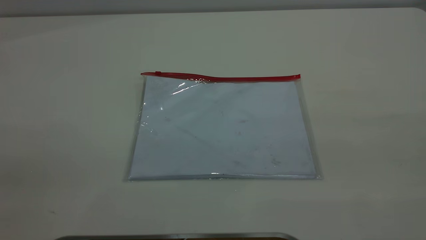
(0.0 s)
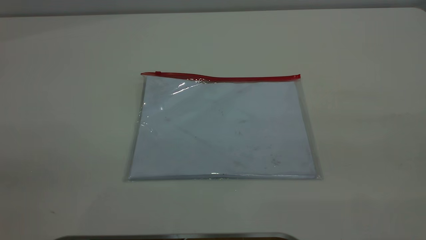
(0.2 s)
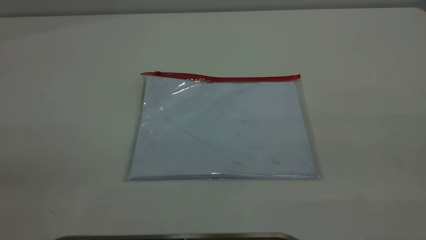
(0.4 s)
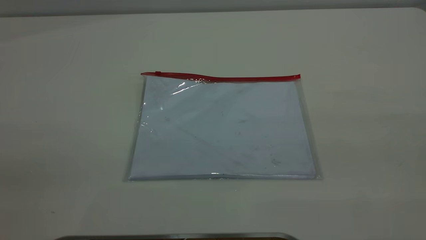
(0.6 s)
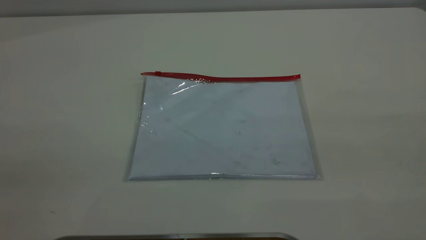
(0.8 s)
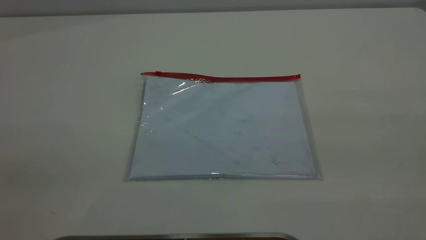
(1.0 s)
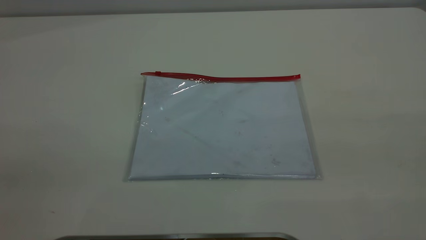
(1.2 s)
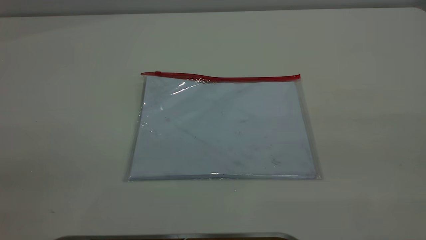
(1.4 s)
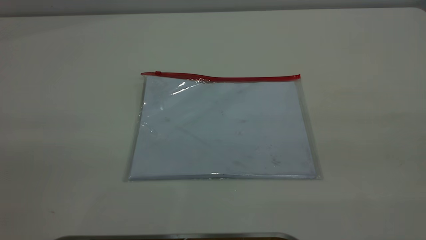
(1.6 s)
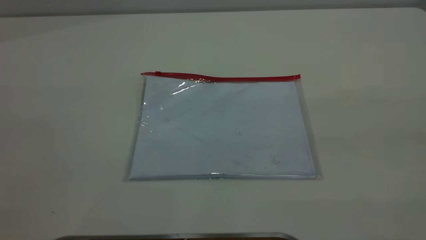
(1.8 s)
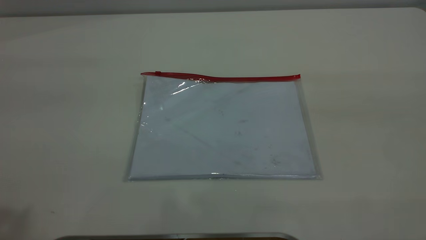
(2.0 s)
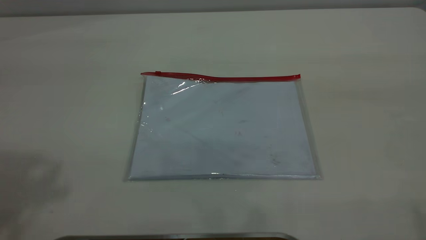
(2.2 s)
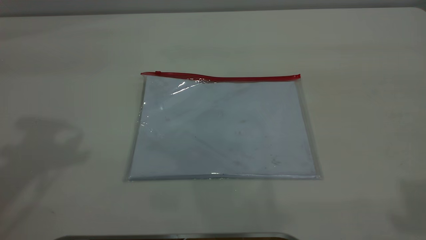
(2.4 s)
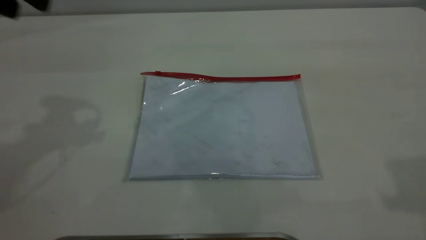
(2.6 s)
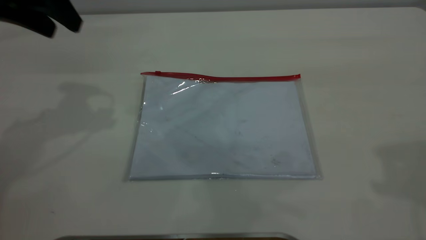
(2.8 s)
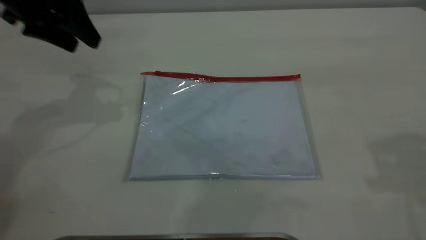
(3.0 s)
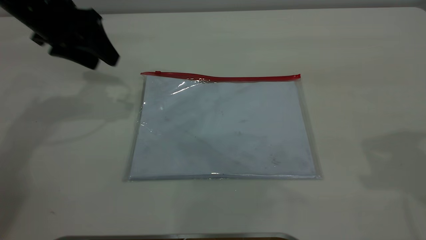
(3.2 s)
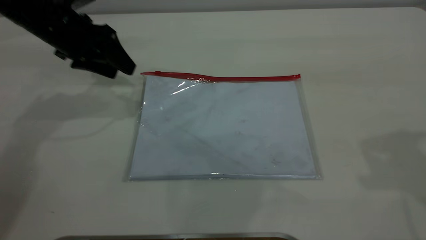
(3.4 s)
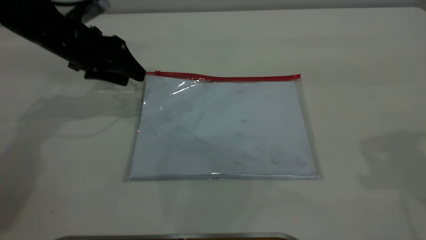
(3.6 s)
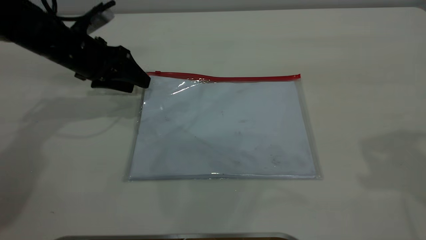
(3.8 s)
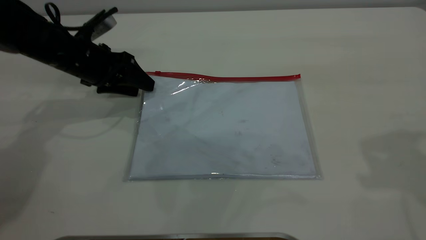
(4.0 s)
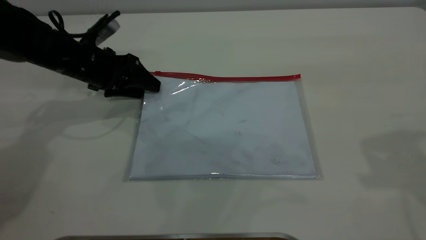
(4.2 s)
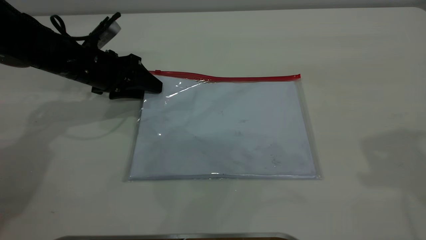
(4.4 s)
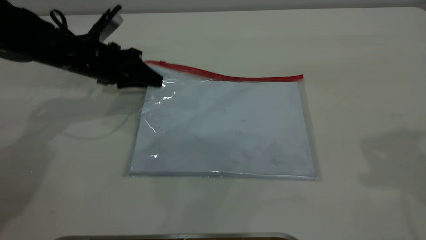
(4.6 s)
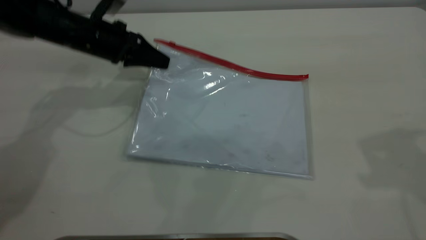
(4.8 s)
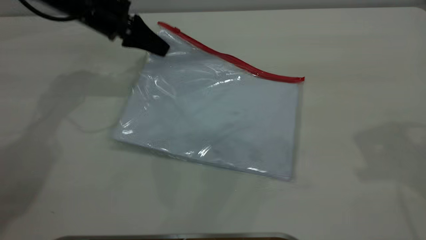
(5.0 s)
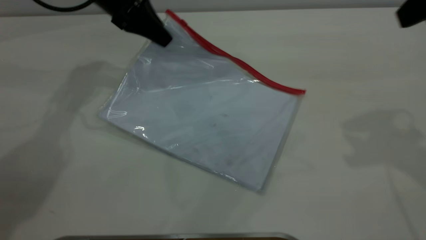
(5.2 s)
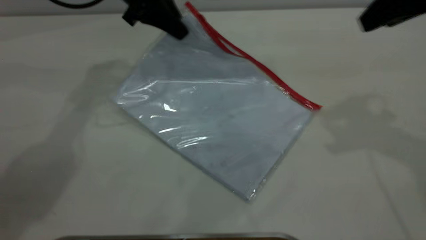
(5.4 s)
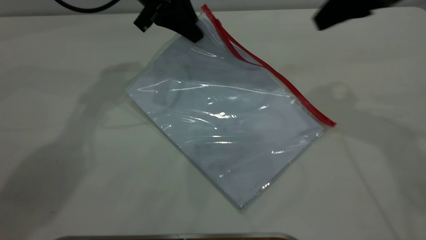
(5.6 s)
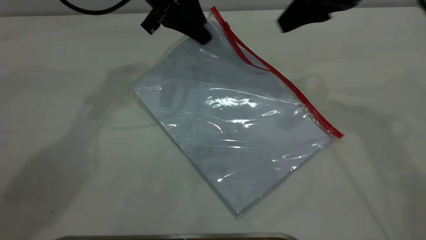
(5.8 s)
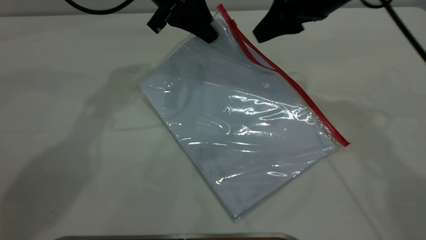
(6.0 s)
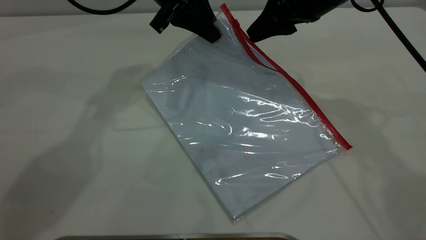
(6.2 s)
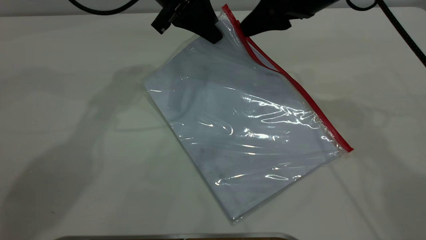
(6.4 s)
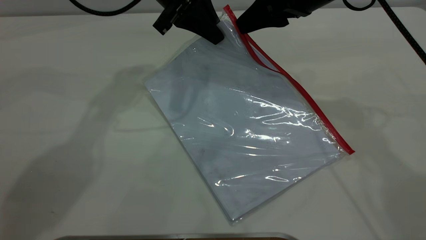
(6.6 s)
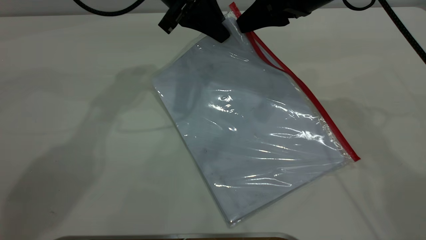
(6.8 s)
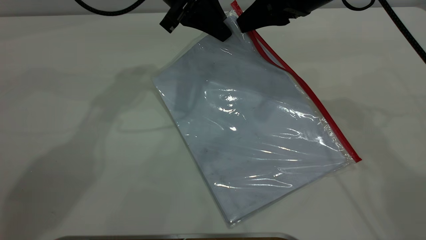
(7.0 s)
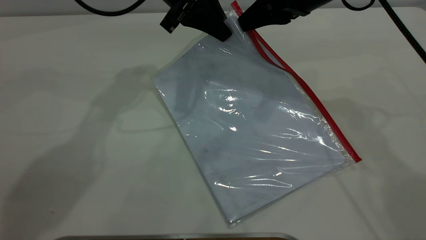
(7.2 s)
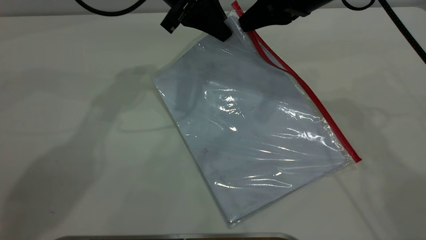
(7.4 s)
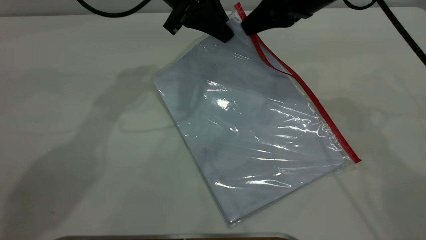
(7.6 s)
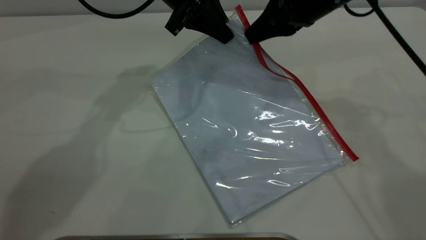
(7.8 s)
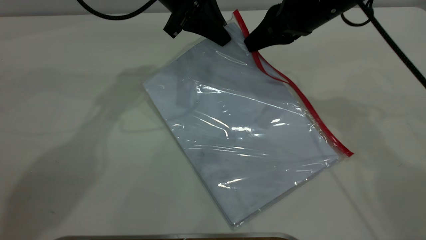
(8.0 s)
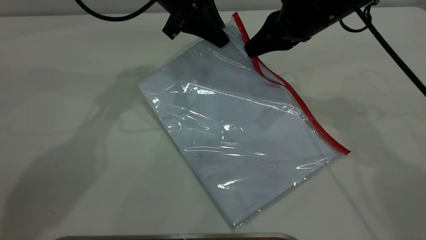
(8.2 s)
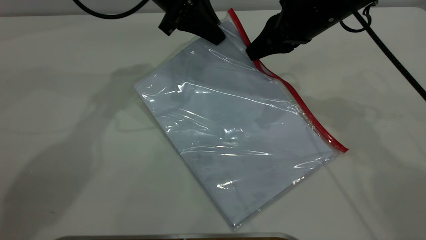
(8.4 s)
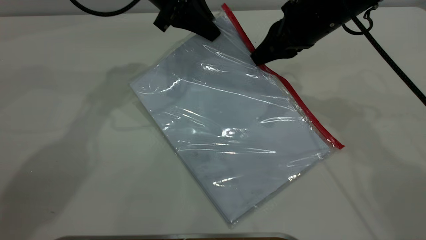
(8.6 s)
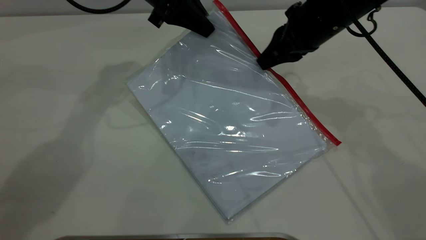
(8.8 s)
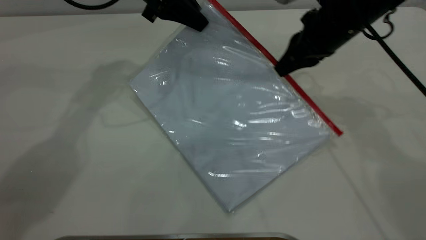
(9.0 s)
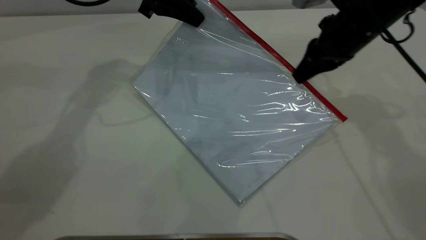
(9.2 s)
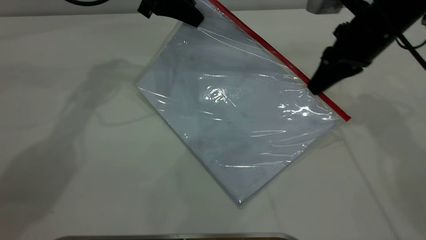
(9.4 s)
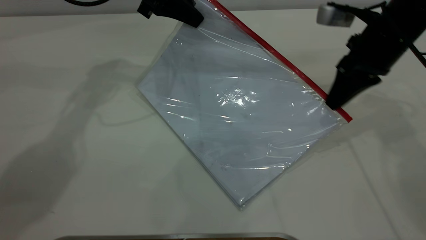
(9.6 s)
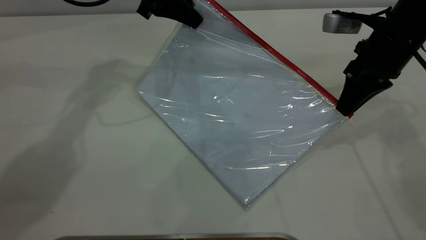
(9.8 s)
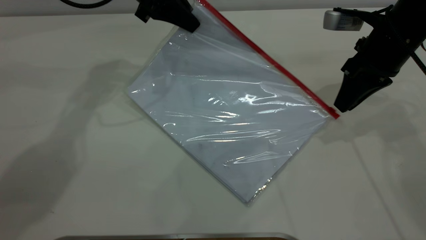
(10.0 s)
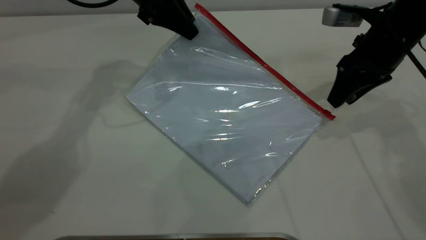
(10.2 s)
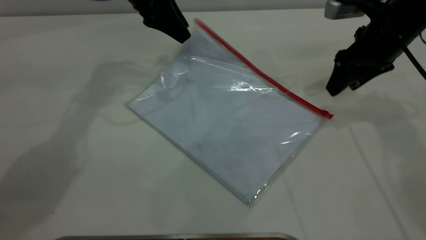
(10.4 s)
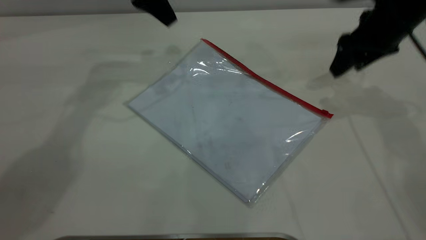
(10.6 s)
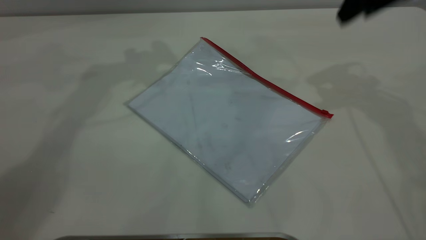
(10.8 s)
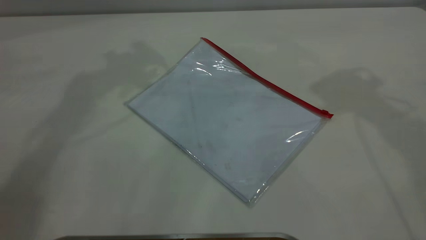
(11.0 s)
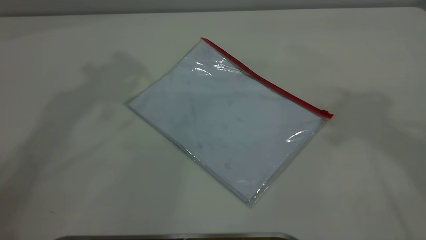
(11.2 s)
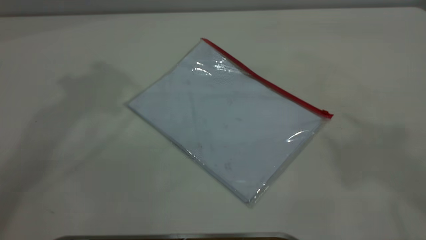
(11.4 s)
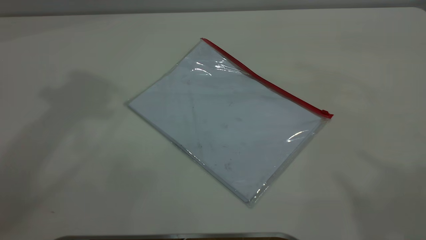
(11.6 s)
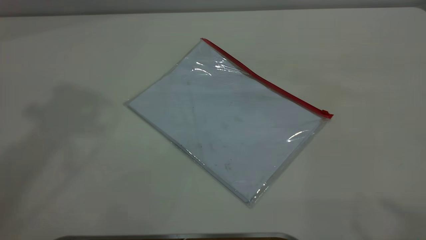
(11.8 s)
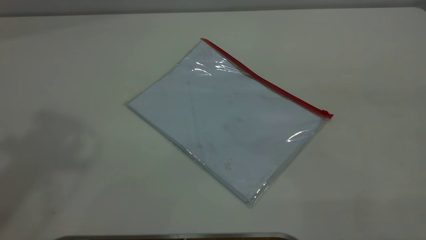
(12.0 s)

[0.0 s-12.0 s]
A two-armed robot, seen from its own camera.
Step, 0.0 to 5.0 s: Pick up the transparent plastic bag with the left gripper.
Step, 5.2 to 10.0 s: Pulling up the zipper on the transparent plastic bag with the right gripper to close it.
Step, 10.2 to 10.6 s: Place the transparent plastic bag.
1.6 to 3.0 s: The left gripper is displaced forward and downward by about 40 cm.
3.0 to 4.4 s: The left gripper is displaced downward by approximately 15 cm.
4.4 to 6.0 s: The right gripper is displaced forward, downward and to the left by approximately 25 cm. Meanwhile the left gripper is displaced to the right, upward and forward by some 20 cm, and closes.
6.0 to 7.6 s: The right gripper closes up.
7.6 to 9.0 s: The left gripper travels to the left by about 5 cm; the right gripper heads downward, covering some 5 cm.
9.0 to 10.4 s: The left gripper opens up; the right gripper moves to the right, roughly 5 cm, and opens up.
10.4 to 12.0 s: The grippers both shift upward and backward by roughly 50 cm.

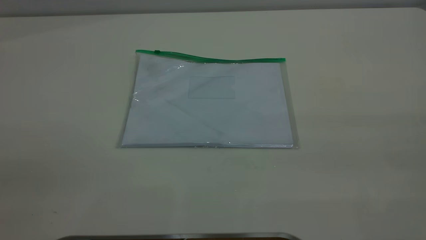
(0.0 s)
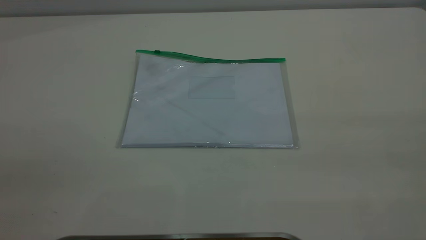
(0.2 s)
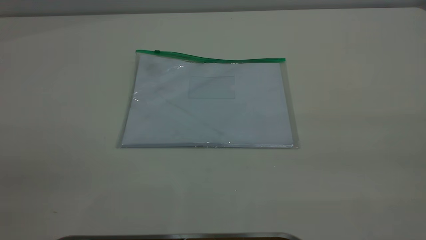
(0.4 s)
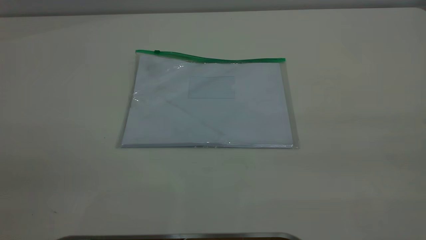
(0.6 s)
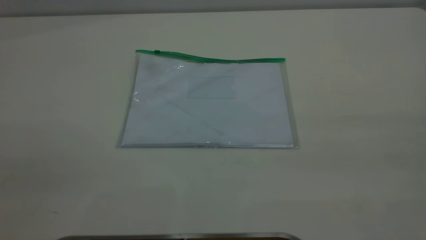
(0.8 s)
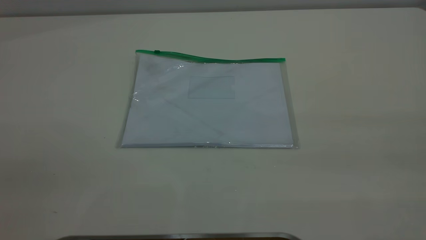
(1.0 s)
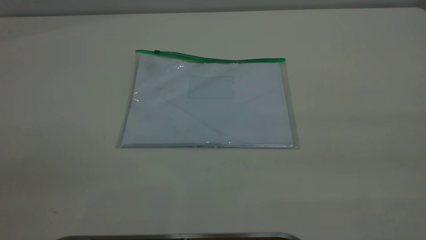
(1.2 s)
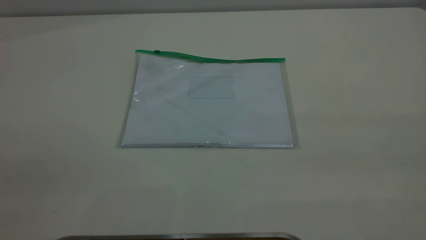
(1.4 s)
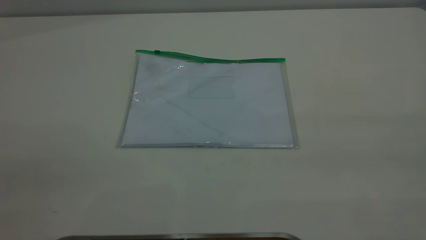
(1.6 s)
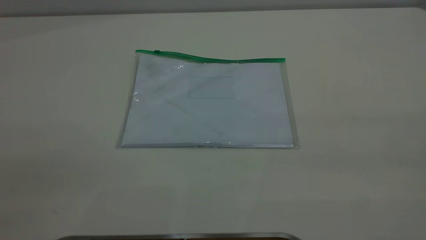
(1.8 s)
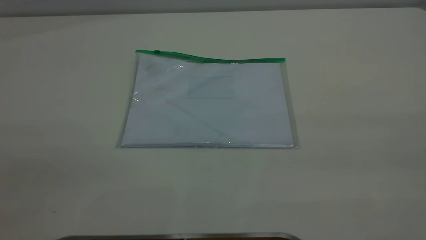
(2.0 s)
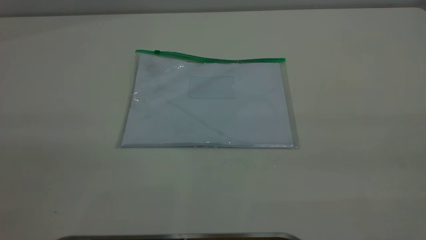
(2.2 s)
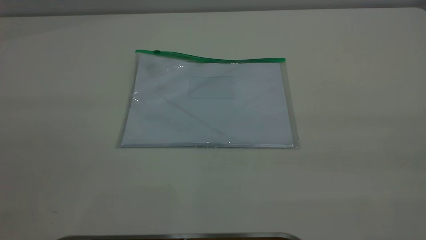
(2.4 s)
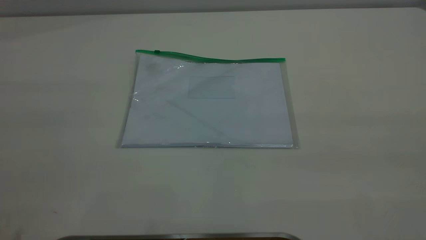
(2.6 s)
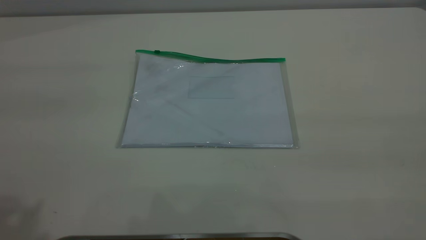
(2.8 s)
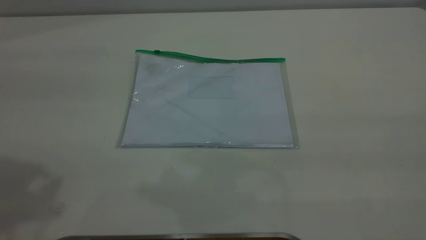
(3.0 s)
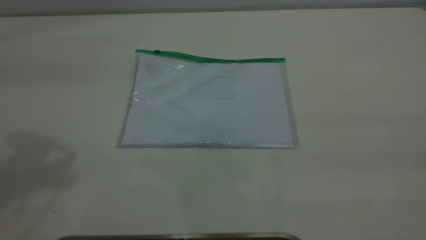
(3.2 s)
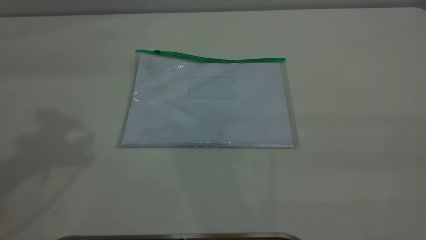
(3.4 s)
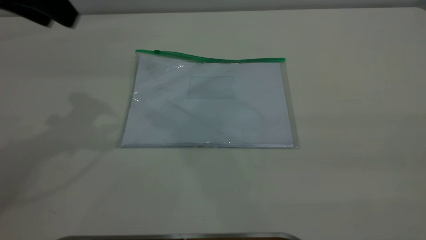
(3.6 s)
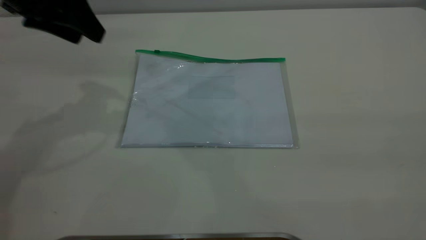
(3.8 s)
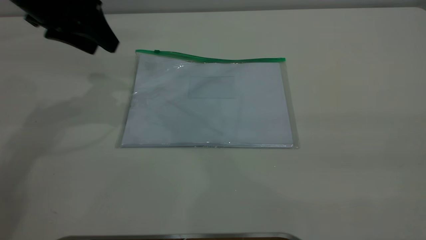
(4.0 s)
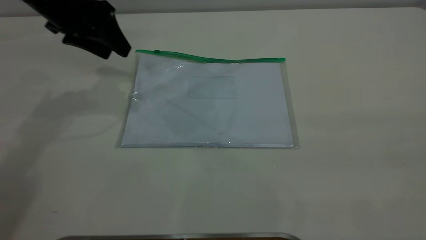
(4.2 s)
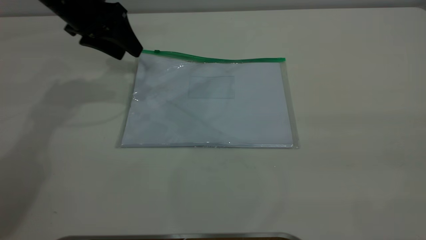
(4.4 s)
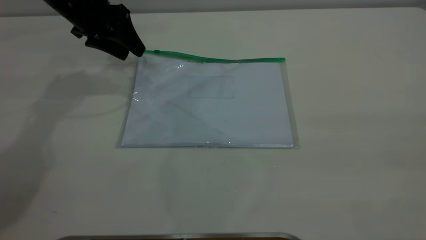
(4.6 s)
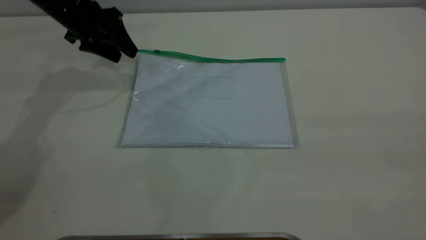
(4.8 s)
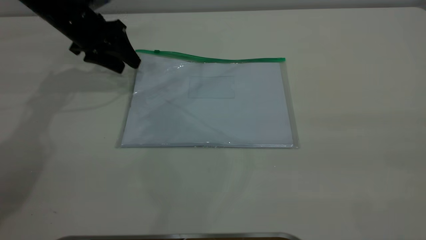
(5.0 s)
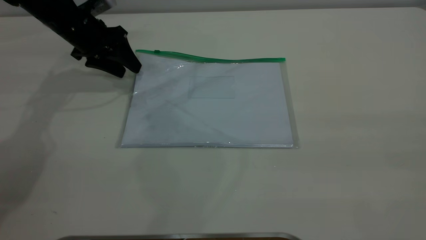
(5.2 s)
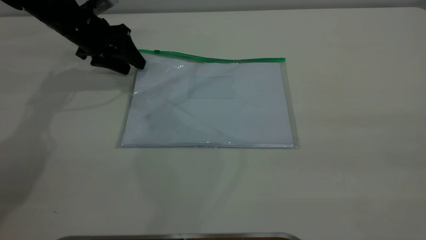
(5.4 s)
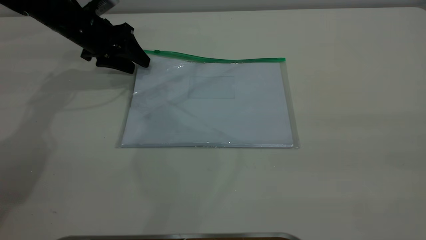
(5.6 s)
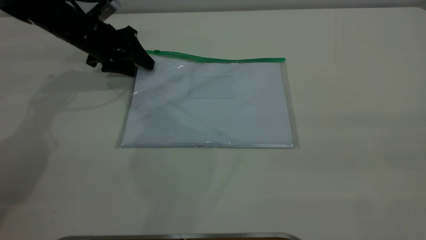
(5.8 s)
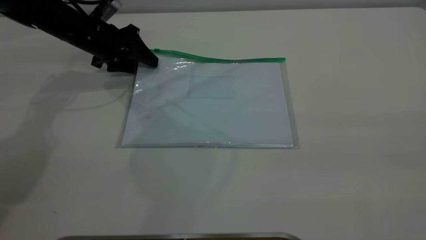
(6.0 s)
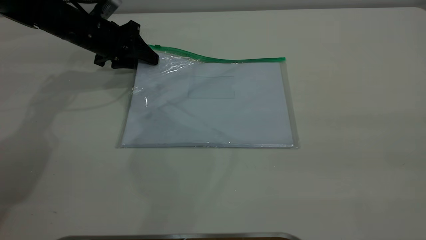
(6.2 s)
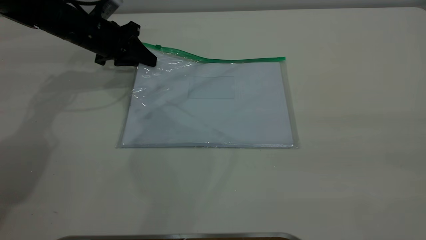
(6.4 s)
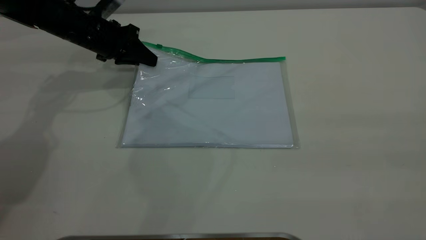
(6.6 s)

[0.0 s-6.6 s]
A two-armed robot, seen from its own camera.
0.0 to 1.6 s: Neither gripper changes place.
3.2 to 5.0 s: The left gripper is displaced downward and forward by roughly 35 cm.
5.0 to 6.6 s: The left gripper closes up.
